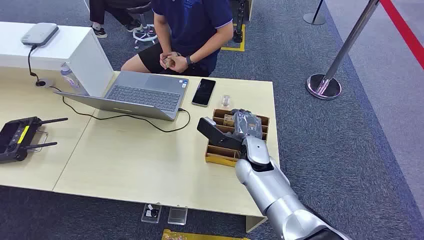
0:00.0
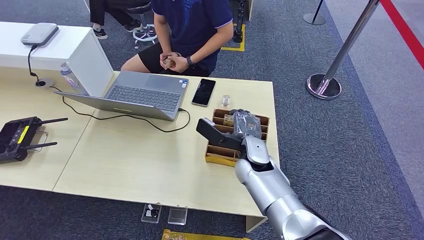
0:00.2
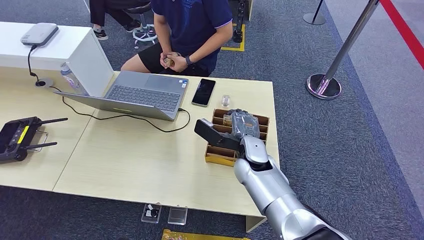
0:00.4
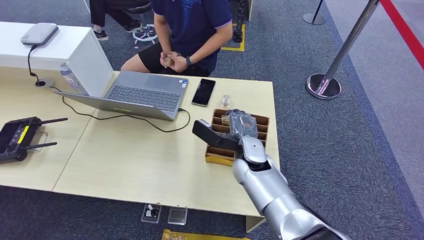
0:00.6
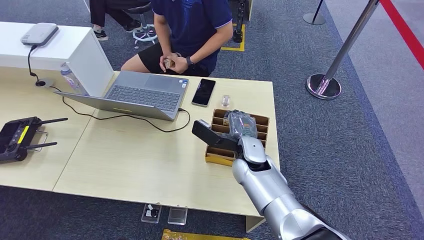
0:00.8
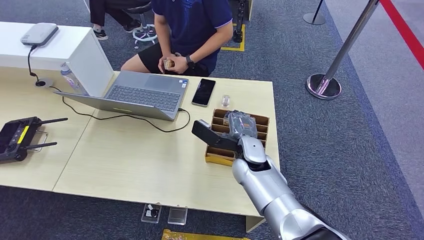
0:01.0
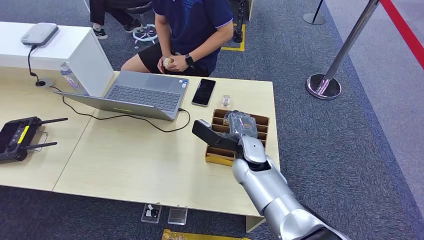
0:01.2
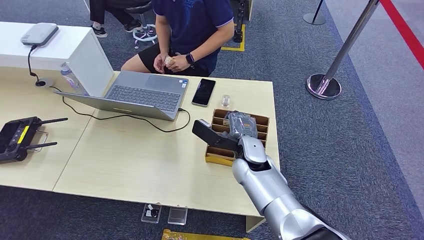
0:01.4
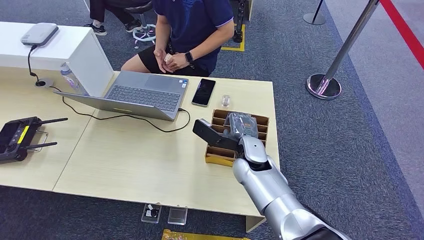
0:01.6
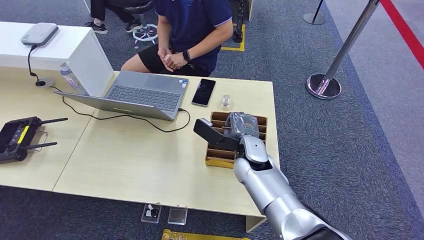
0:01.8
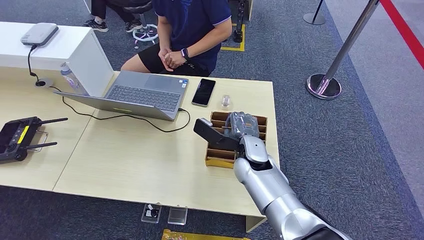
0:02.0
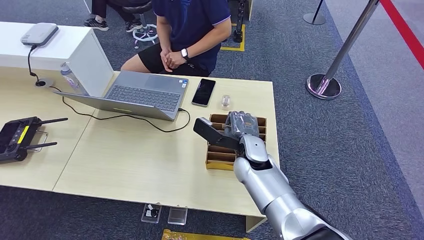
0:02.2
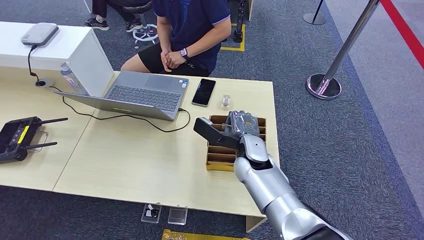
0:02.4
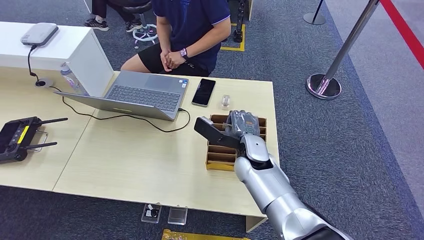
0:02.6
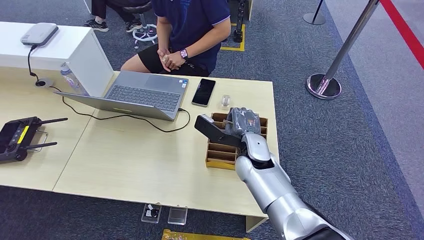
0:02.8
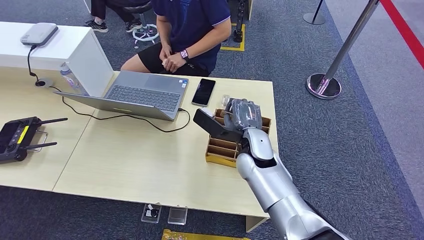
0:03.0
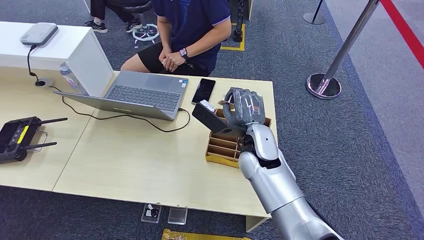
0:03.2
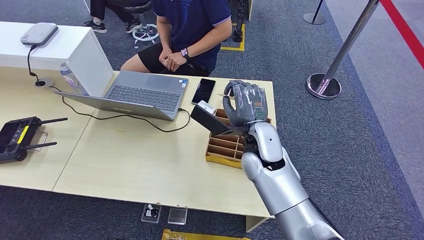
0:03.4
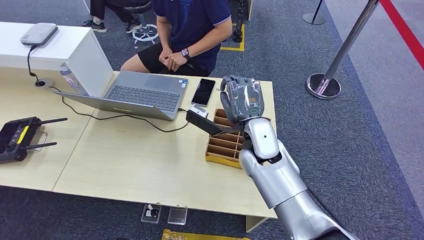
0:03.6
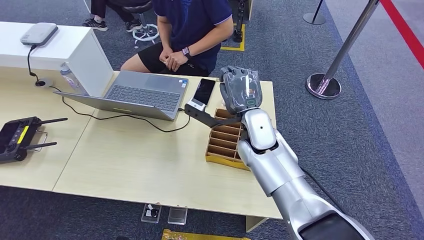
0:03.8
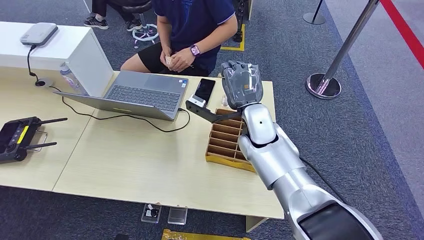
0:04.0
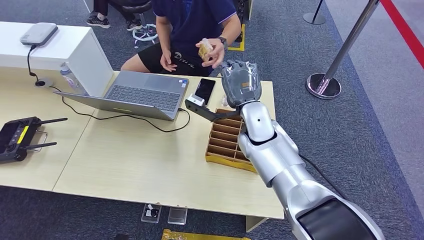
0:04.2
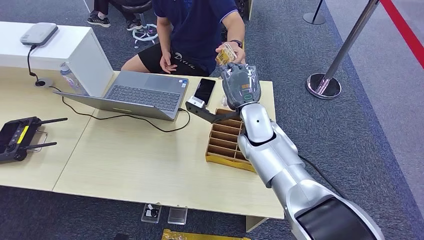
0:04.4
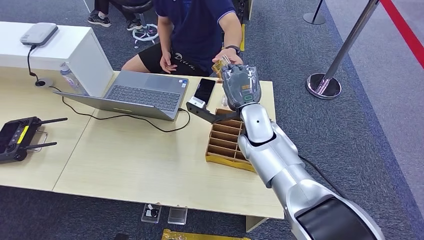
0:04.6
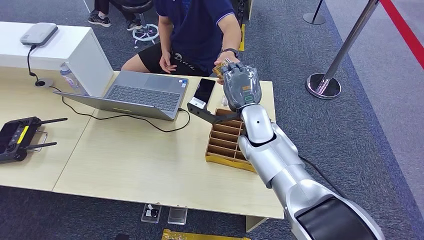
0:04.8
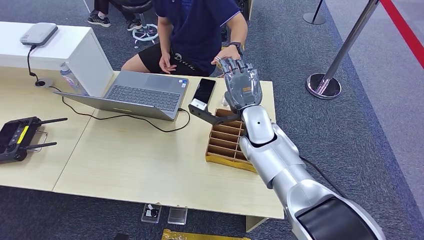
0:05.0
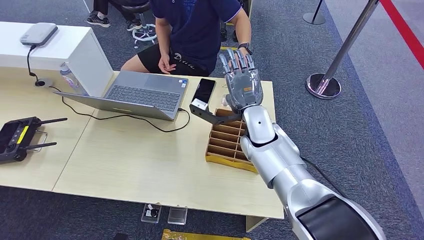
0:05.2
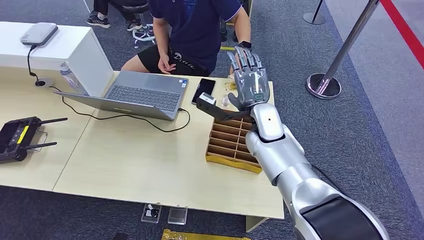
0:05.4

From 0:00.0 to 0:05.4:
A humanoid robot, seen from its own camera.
Step, from 0:00.0 to 0:03.6: Pick up the room card from the card holder.
Step, from 0:03.8 to 0:05.2: Hand the room card to the target.
From 0:01.4 to 0:02.8: Neither hand changes place.
From 0:02.8 to 0:04.0: The right hand heads upward, covering approximately 5 cm.
From 0:04.0 to 0:05.4: The hands make only small movements.

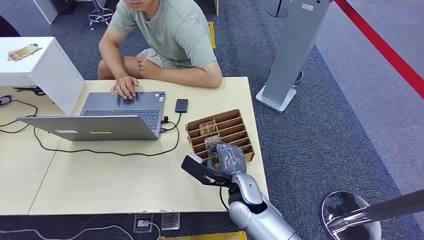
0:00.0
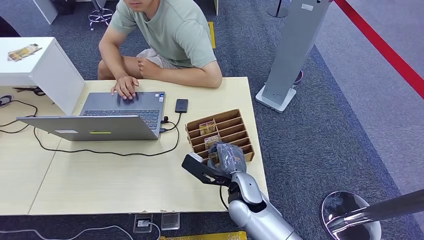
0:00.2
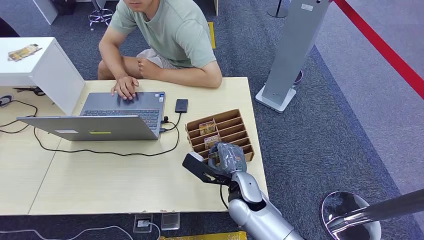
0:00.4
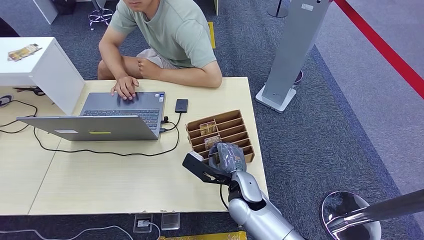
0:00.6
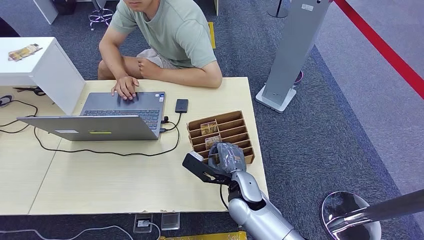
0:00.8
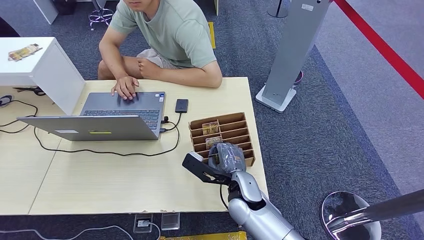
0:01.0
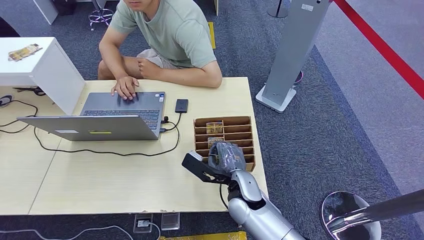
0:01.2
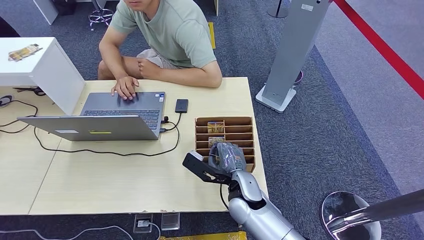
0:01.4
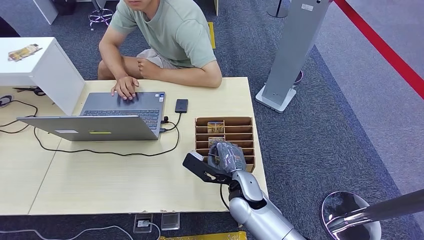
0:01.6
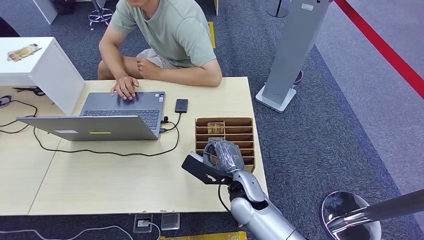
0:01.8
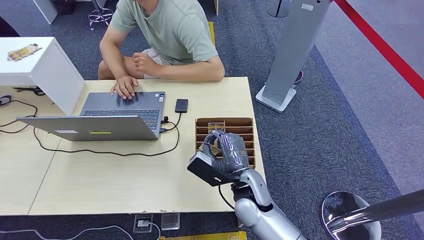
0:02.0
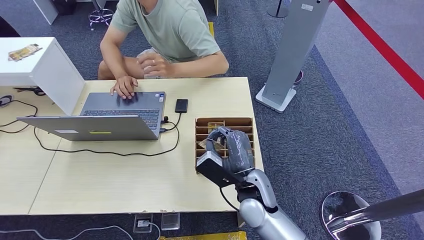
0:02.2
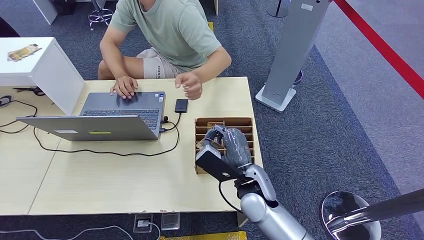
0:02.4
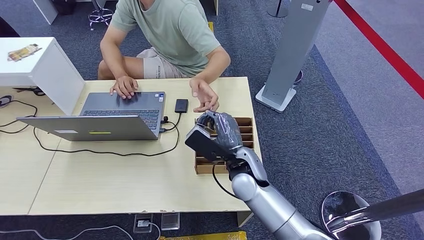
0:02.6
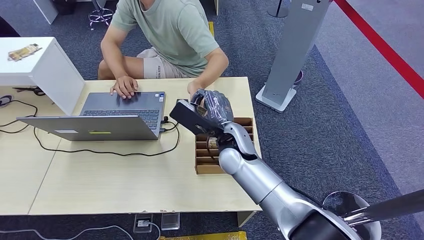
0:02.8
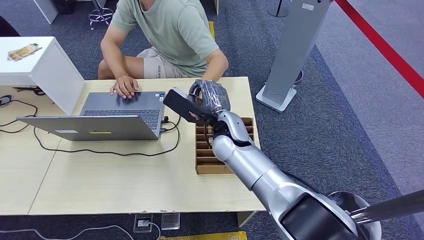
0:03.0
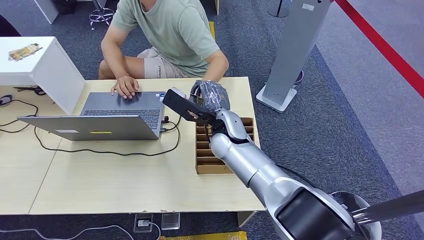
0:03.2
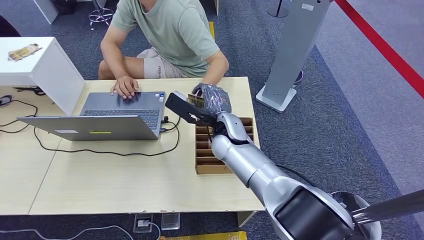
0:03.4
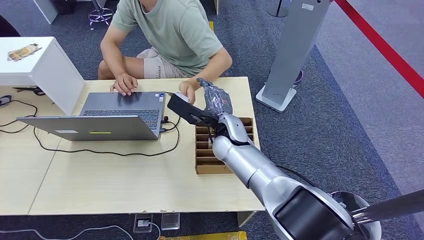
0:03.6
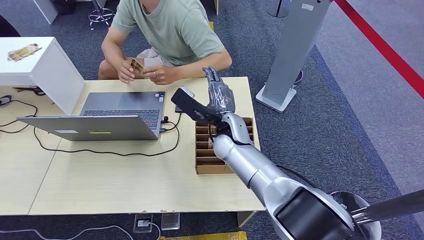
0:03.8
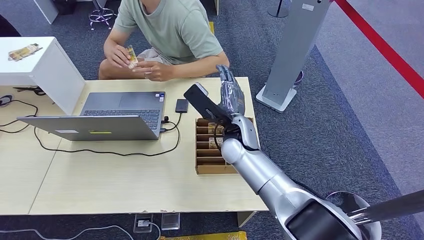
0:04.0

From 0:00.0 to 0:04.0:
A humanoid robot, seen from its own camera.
Step, from 0:00.0 to 0:02.0: Pick up the room card from the card holder.
Step, from 0:02.8 to 0:04.0: Hand the room card to the target.
From 0:01.4 to 0:02.6: The right hand heads upward, covering roughly 5 cm.
From 0:02.6 to 0:04.0: The right hand goes some 10 cm forward.
